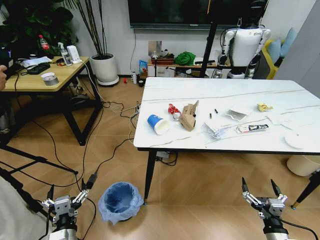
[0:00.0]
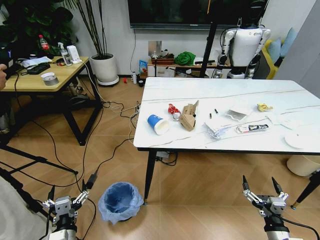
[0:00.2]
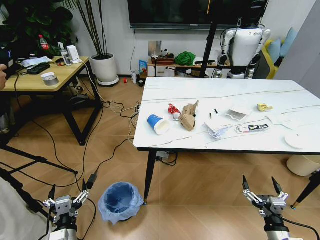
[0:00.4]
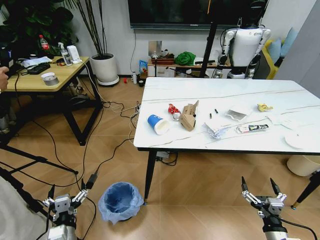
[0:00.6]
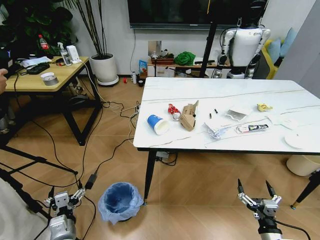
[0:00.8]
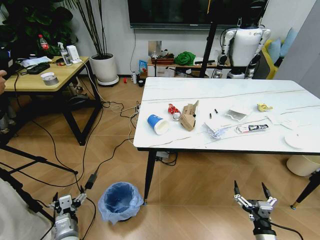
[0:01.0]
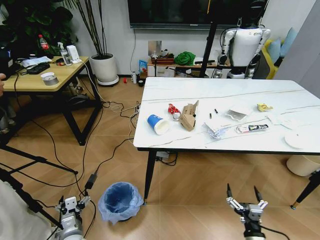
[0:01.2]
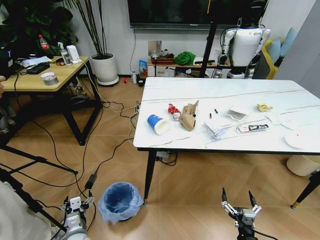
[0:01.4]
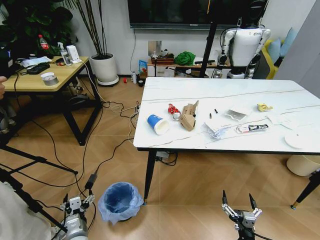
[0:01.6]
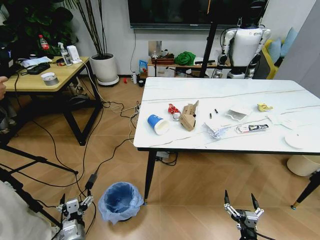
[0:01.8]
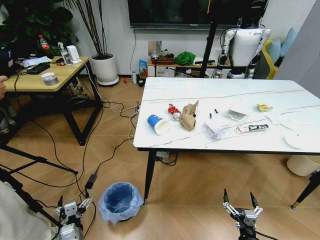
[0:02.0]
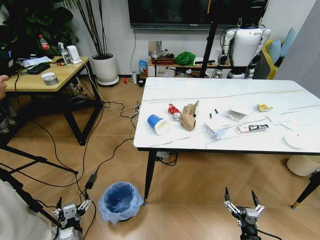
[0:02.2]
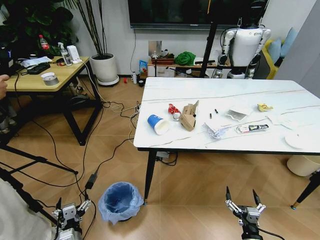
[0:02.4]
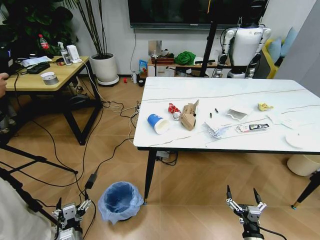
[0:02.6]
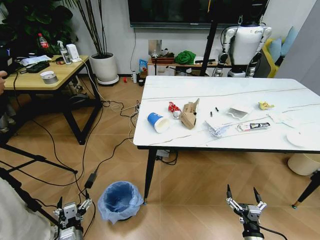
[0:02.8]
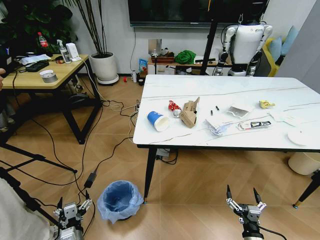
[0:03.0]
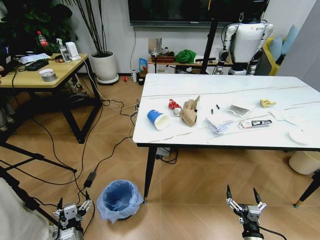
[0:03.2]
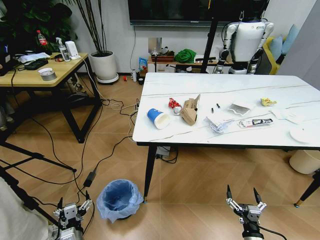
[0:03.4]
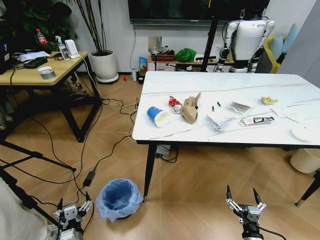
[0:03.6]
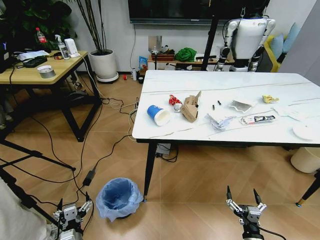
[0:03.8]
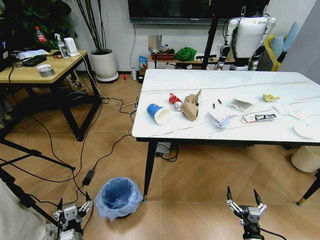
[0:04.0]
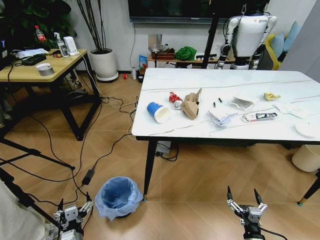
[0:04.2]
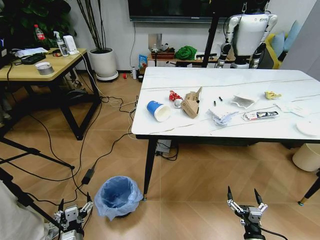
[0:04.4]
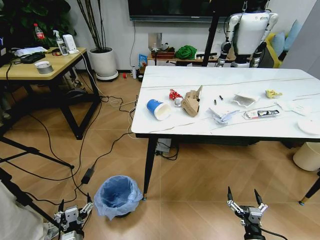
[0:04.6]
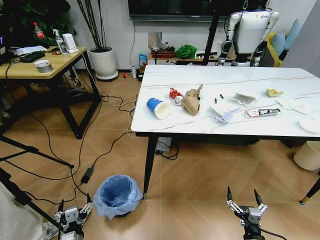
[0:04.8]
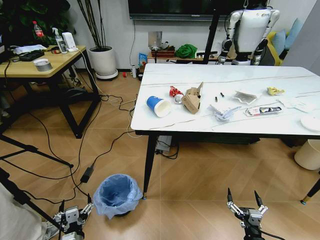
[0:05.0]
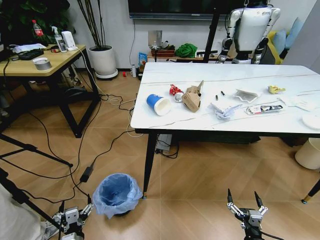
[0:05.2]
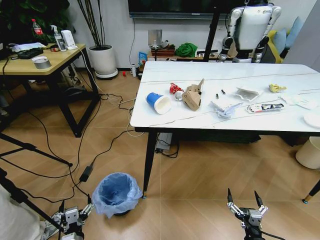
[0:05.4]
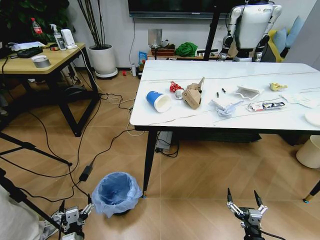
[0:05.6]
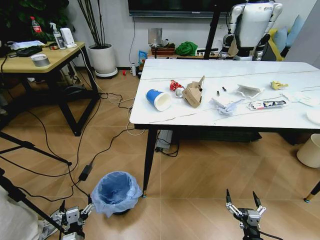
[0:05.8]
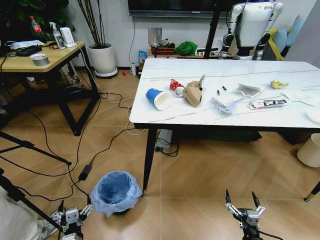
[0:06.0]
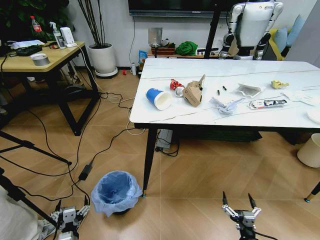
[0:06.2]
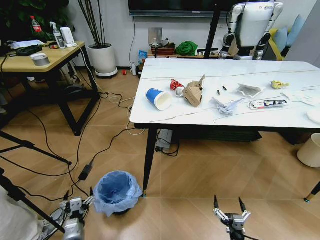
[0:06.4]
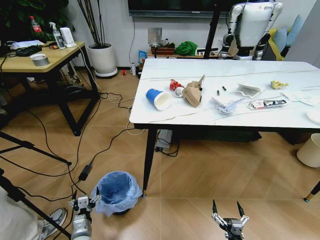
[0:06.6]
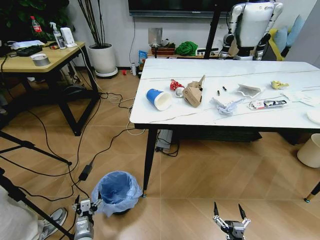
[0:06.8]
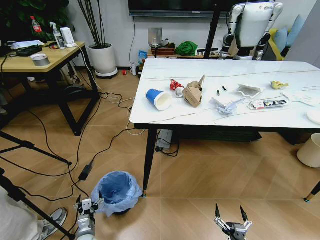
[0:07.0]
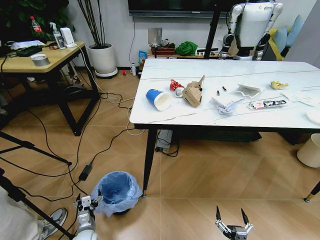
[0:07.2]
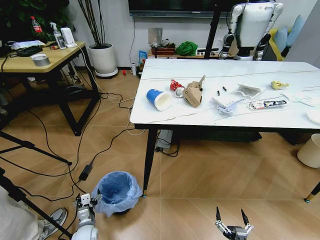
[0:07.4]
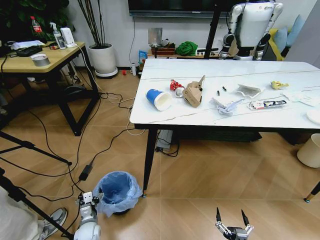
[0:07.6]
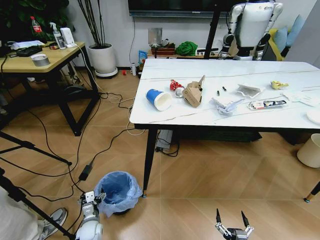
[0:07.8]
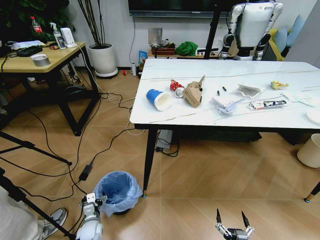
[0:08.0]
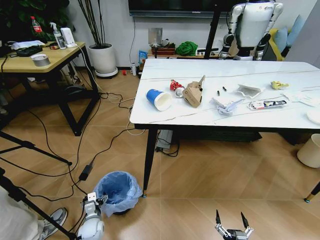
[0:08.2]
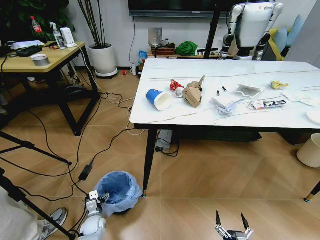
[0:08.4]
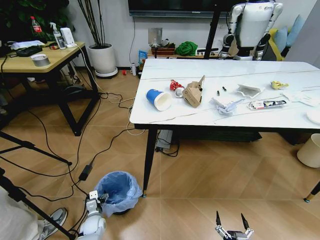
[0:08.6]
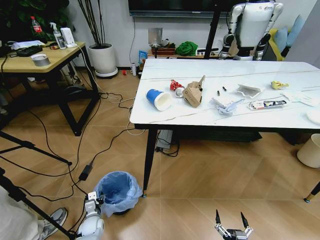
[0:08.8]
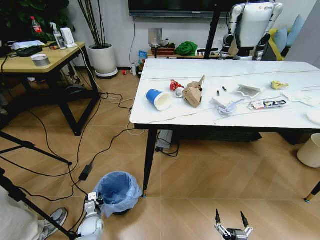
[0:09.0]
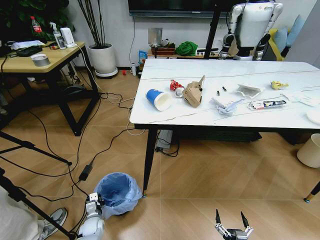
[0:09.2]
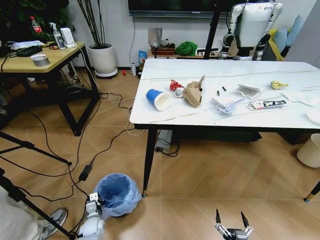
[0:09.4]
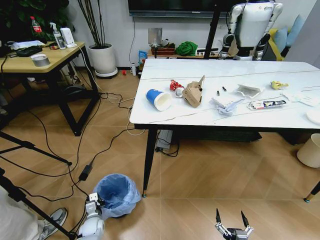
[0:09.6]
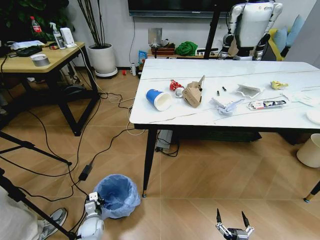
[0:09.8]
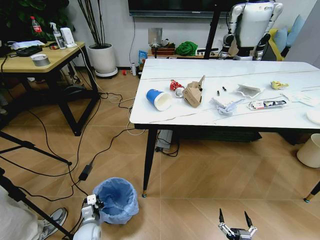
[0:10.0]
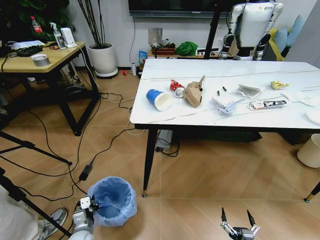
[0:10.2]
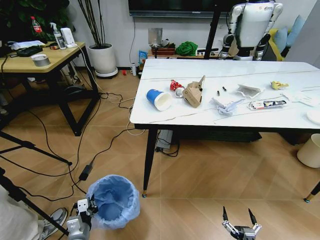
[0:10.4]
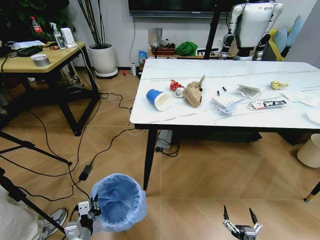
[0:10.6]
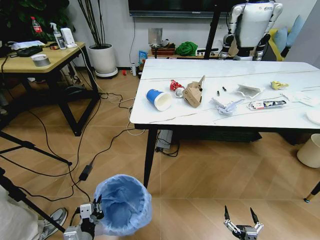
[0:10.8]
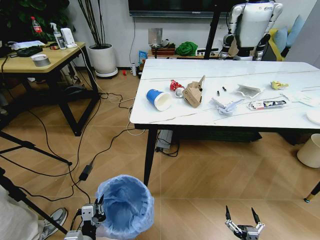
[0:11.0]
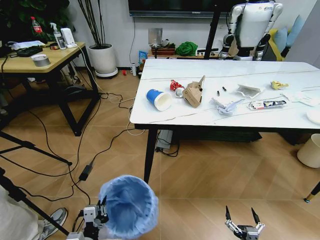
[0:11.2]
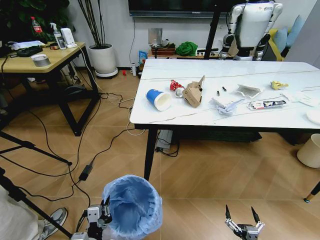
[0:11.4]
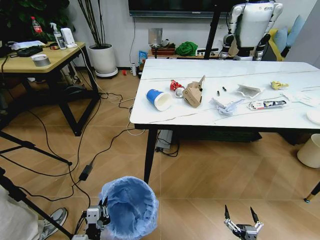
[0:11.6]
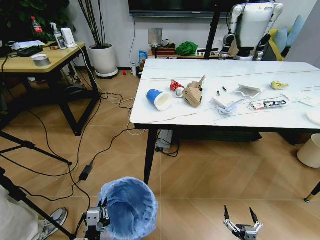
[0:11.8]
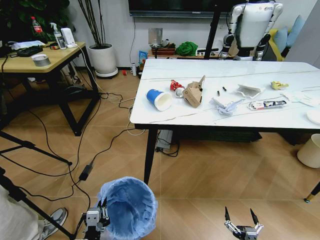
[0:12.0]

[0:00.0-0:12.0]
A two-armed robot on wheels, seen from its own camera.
Task of the whole recording: Pick up the trash bin and place the trash from the table into it.
0:01.6 to 0:03.0: The left gripper shifts by roughly 5 cm.
0:06.0 to 0:07.6: The left gripper travels forward and downward by about 15 cm; the right gripper moves backward, some 5 cm.
0:07.6 to 0:09.0: The left gripper closes.
0:09.0 to 0:10.4: The left gripper travels upward and backward by roughly 15 cm, and closes up.
0:10.4 to 0:12.0: The left gripper is displaced upward, backward and to the right by about 15 cm.

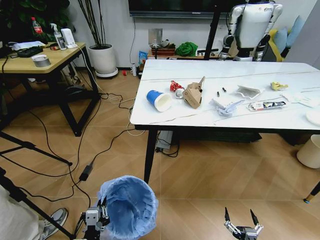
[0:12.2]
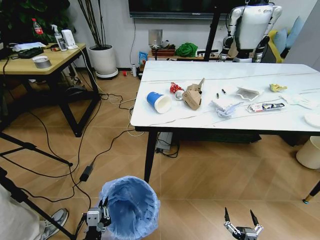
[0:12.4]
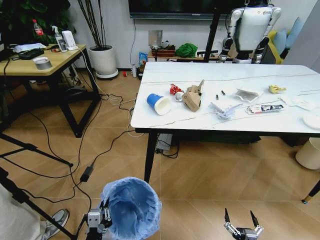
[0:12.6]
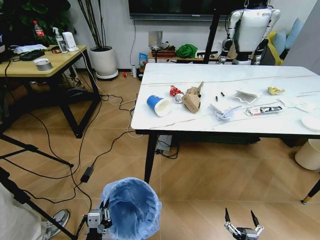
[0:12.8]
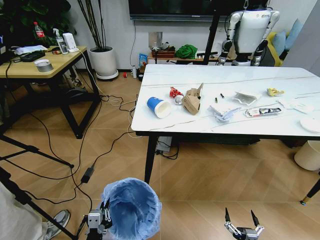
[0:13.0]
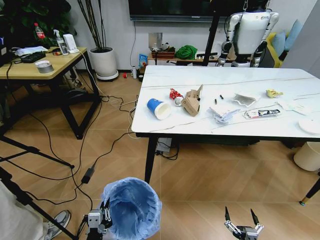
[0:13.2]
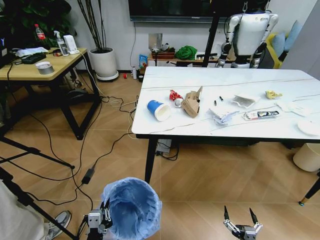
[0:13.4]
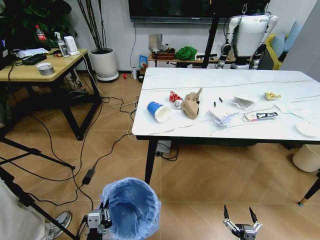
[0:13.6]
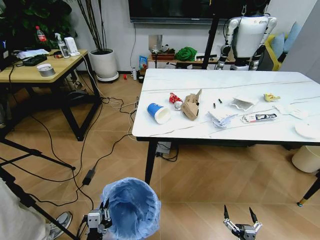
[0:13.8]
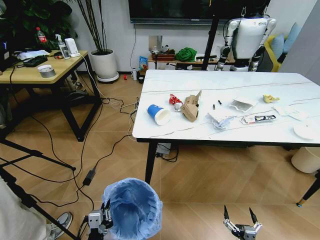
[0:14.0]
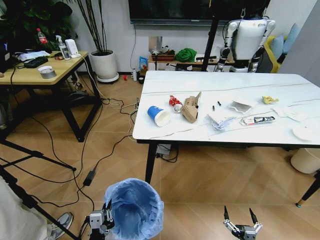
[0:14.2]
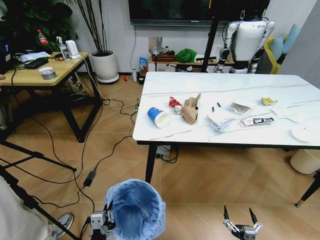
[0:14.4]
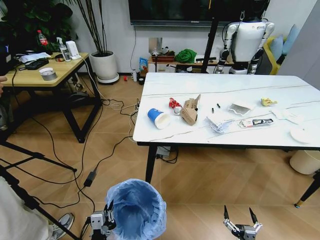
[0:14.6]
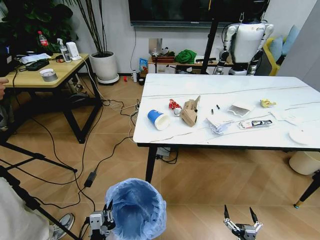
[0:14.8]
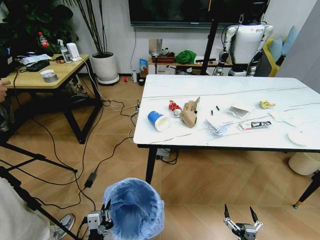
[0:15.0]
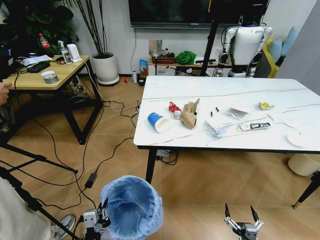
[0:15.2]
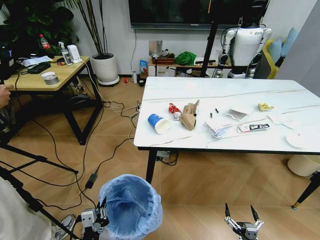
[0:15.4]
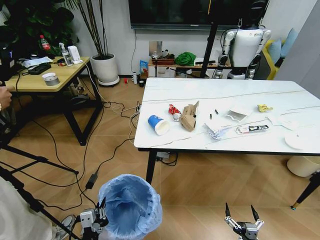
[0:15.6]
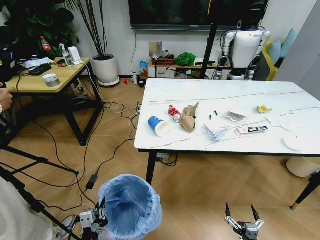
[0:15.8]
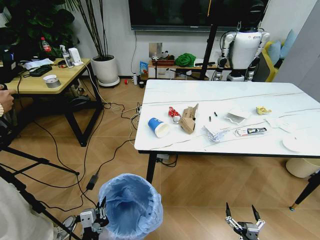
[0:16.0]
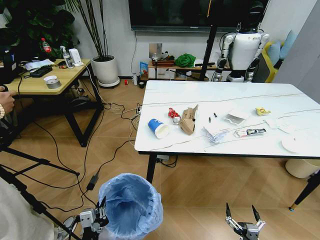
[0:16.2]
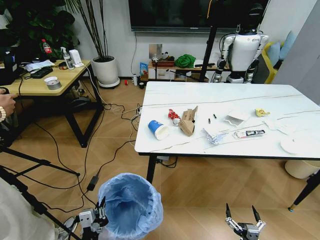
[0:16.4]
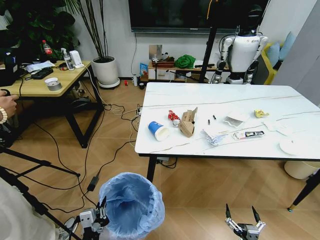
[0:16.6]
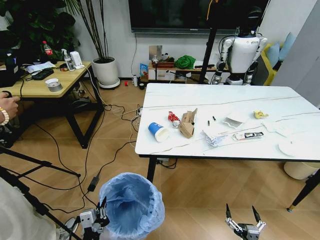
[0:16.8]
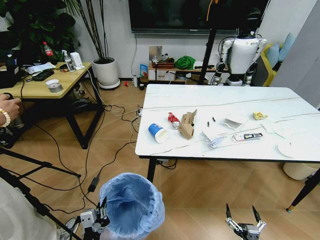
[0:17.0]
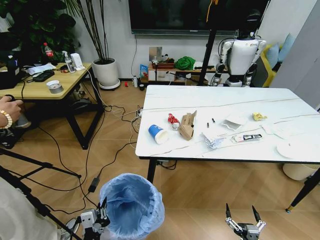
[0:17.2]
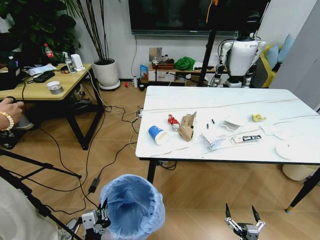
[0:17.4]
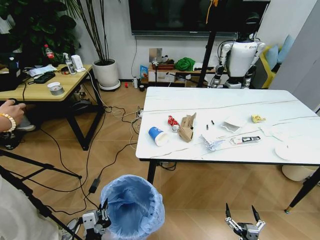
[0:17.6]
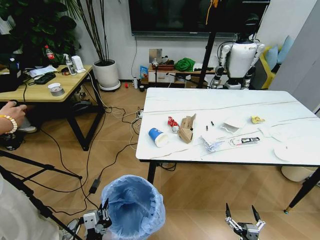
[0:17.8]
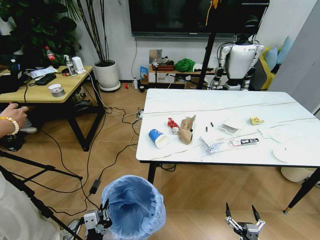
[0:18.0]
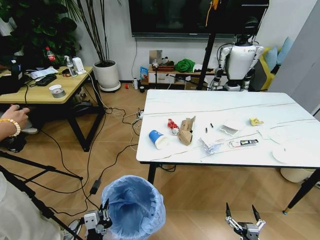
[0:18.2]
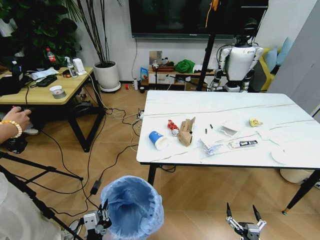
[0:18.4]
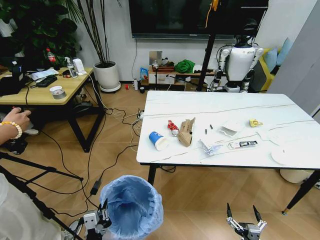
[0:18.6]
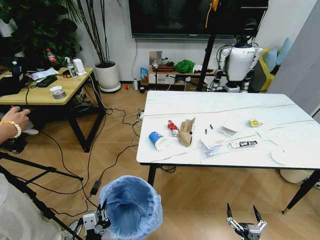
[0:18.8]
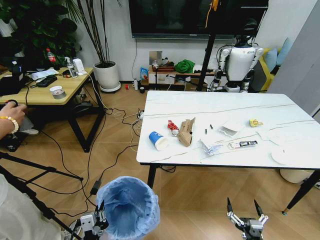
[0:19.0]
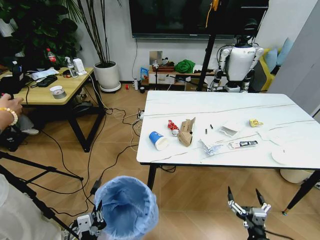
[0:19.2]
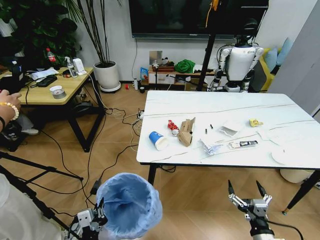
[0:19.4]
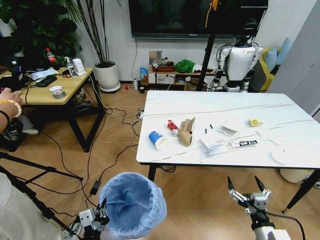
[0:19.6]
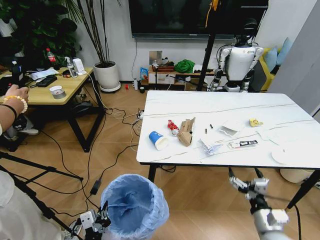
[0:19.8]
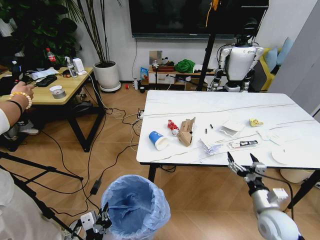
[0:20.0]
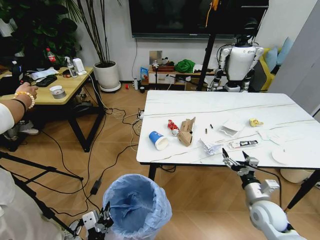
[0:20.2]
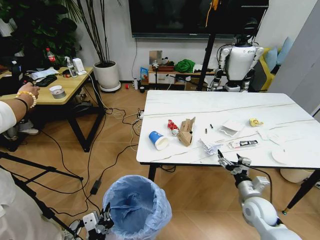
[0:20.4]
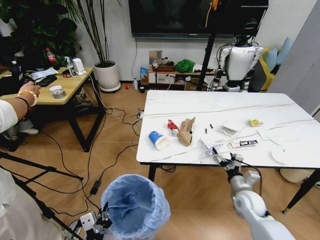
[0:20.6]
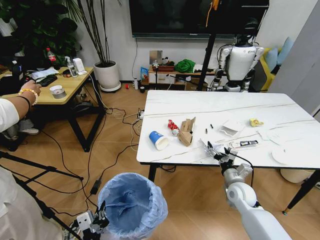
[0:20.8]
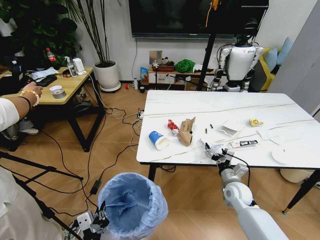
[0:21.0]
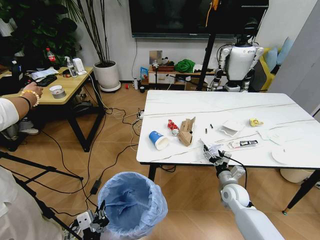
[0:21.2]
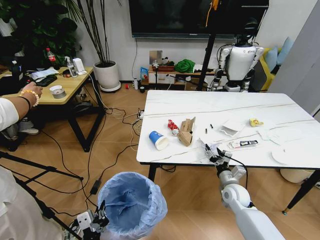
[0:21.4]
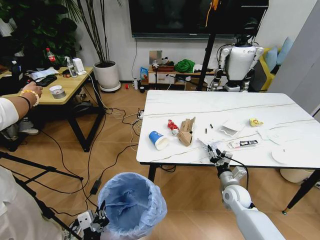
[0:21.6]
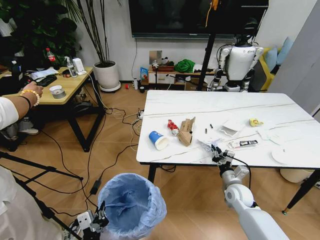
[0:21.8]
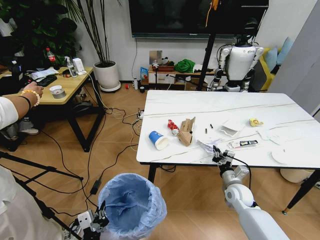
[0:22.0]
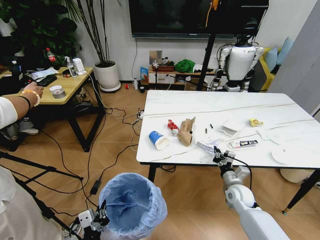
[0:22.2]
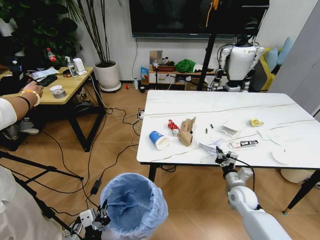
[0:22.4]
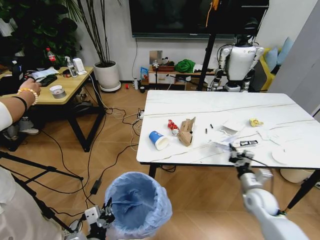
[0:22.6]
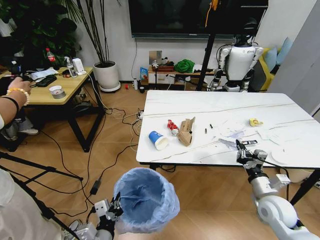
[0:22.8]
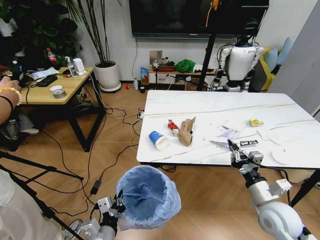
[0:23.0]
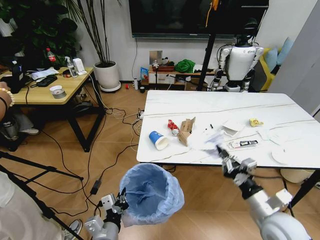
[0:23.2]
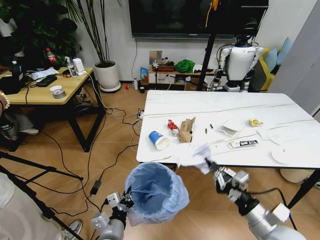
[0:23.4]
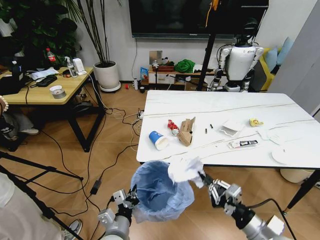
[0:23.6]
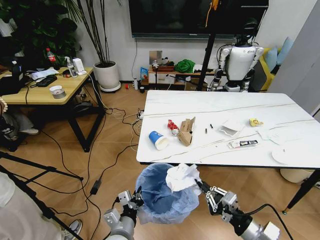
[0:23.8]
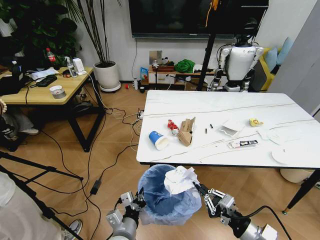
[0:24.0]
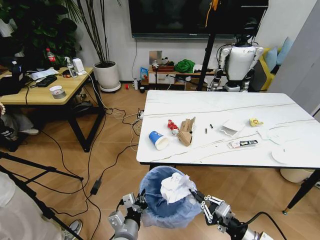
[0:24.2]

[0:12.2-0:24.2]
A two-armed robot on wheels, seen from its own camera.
Task of the whole recording: Pick up the trash bin and place the trash from the table into it.
0:18.2 to 0:19.8: The right gripper moves upward and forward, approximately 20 cm.
0:19.8 to 0:21.2: The right gripper goes roughly 15 cm forward.
0:21.2 to 0:22.6: The right gripper moves to the right, about 5 cm, and closes up.
0:22.6 to 0:24.2: The right gripper is displaced backward by approximately 15 cm; the left gripper travels to the right and forward by some 10 cm.
